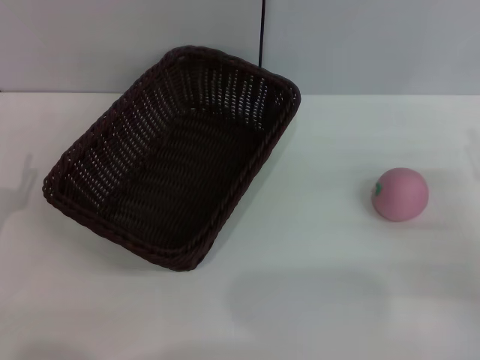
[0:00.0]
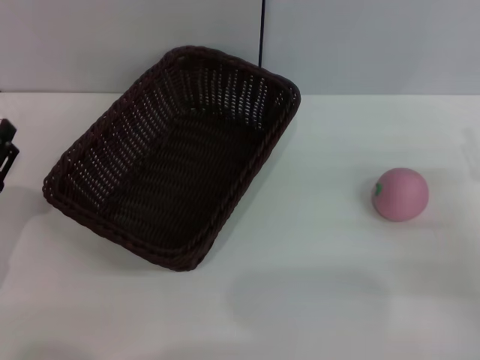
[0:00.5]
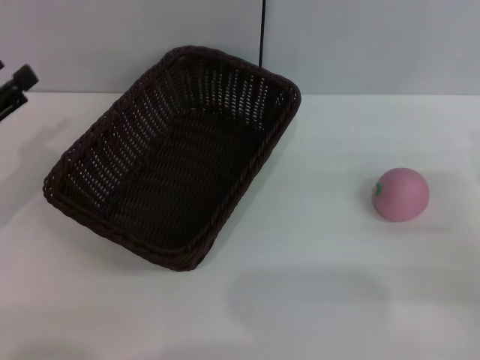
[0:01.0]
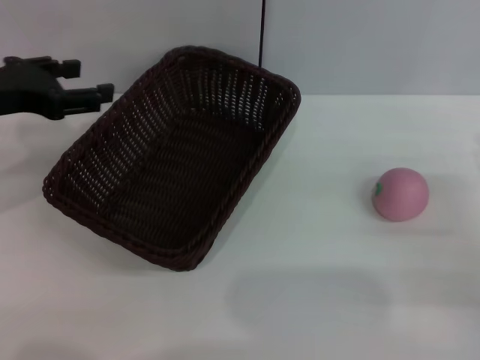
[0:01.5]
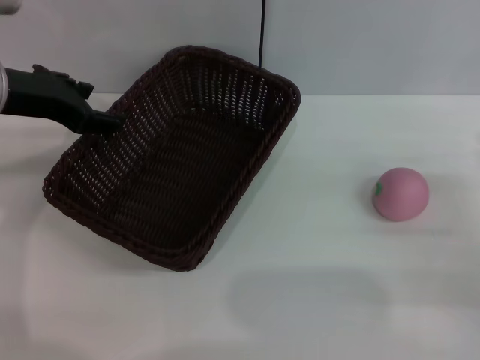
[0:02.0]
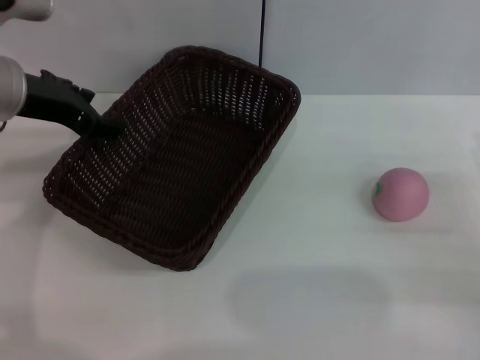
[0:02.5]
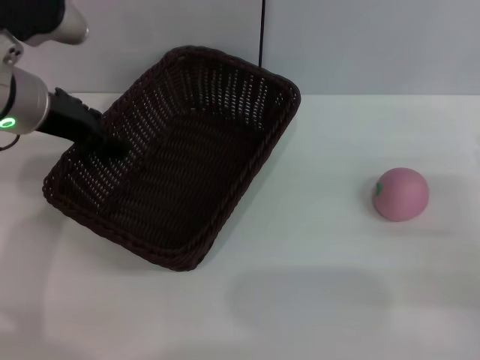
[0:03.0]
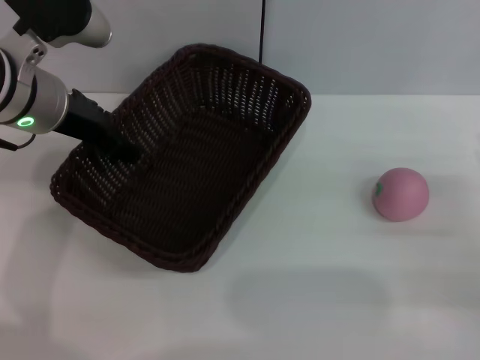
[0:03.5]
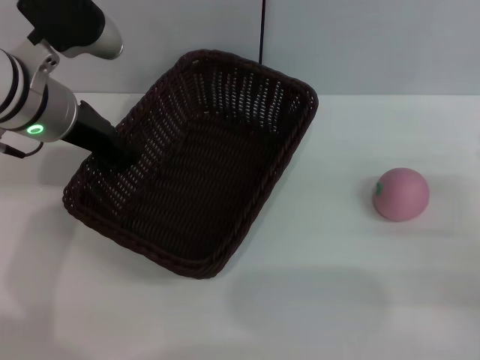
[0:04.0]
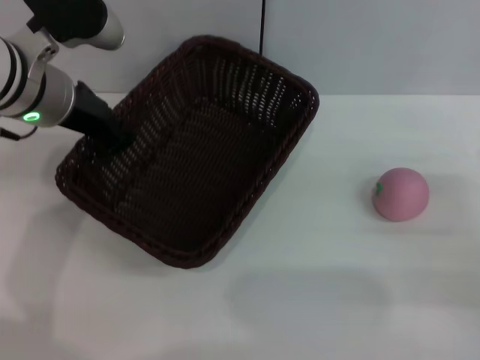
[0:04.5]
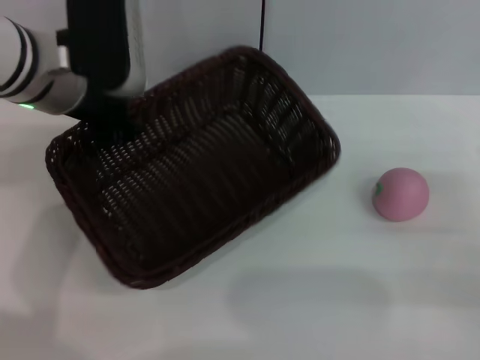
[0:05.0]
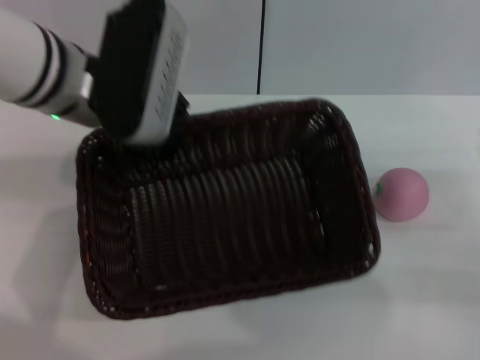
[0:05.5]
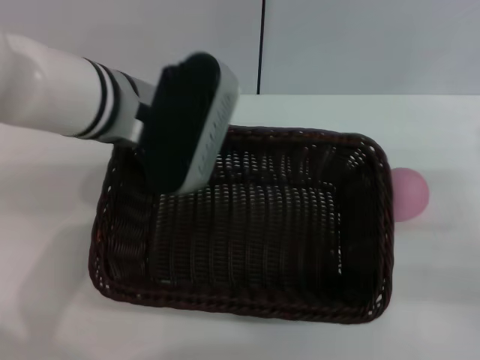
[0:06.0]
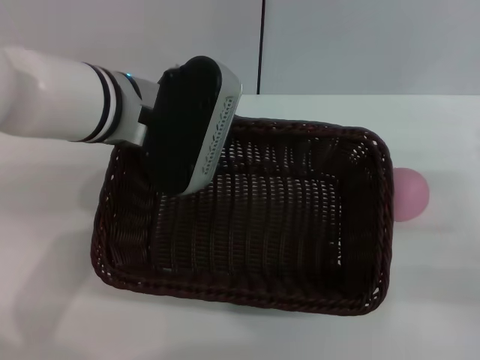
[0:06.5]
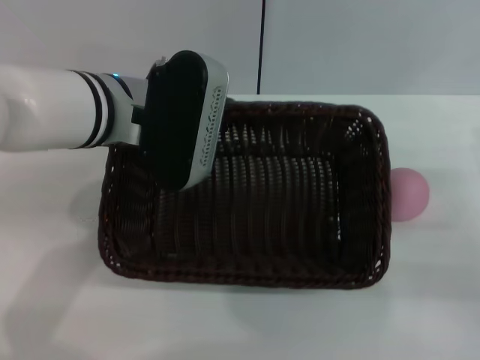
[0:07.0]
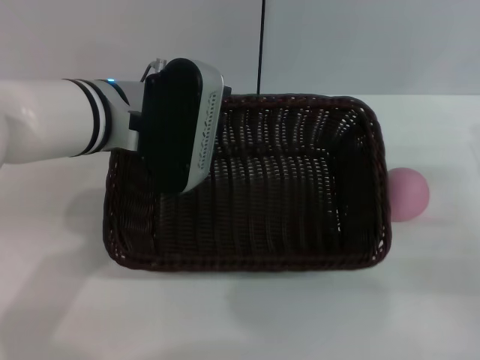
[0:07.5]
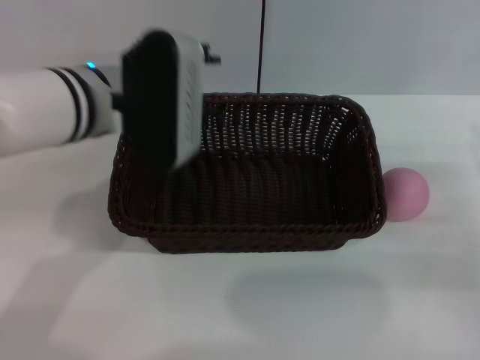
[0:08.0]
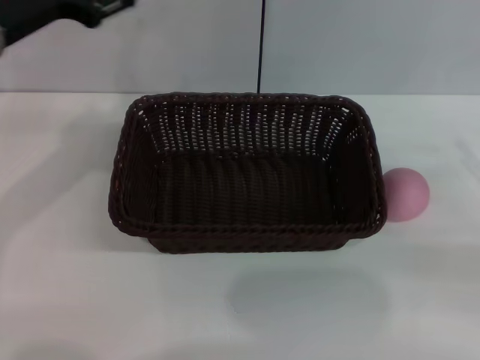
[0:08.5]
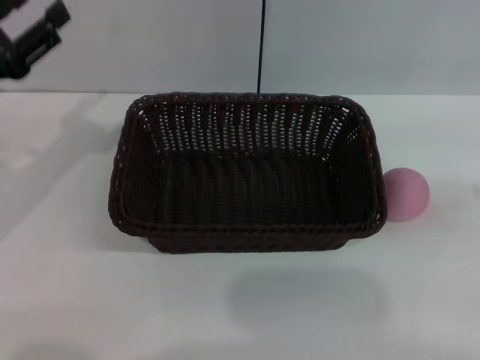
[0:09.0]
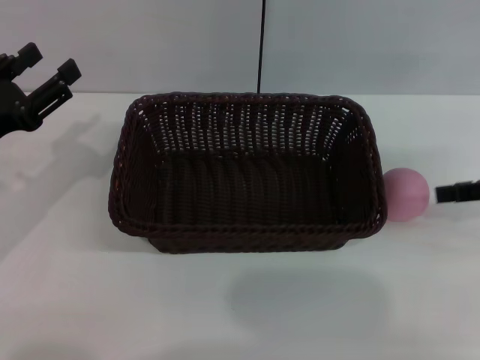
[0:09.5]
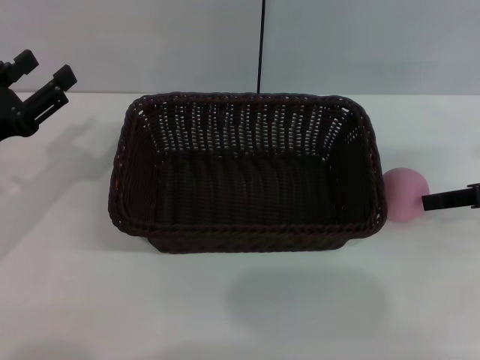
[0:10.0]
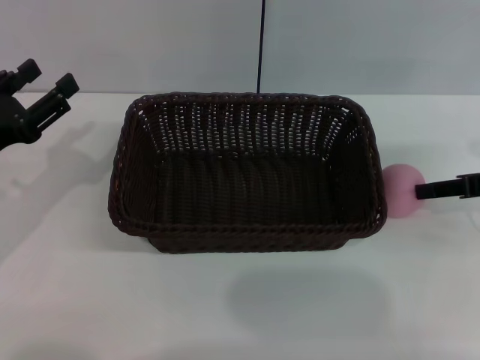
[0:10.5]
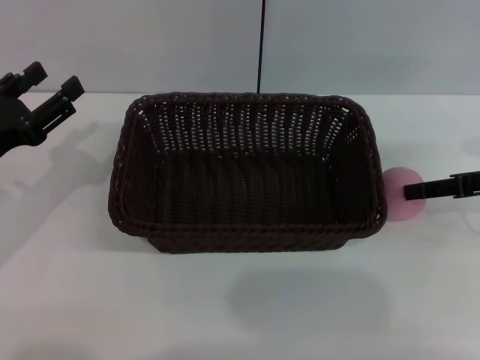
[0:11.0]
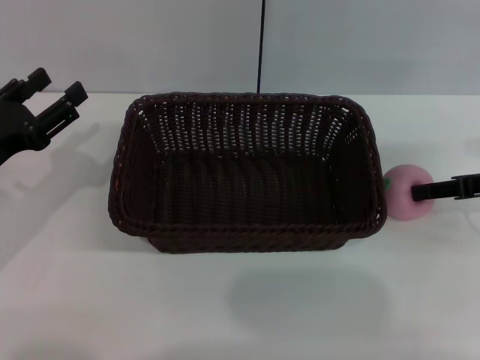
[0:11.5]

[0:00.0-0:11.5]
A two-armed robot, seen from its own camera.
Step, 0:00.0 to 0:05.0: Pick up the dark basket with the left gripper.
Step, 0:05.5 to 0:08.0: Place the dark basket in the center of view with the right gripper.
0:00.0 to 0:02.0: The left gripper is displaced upward, forward and to the right by about 25 cm.
0:02.0 to 0:04.0: The left gripper shifts roughly 5 cm to the right, and closes its fingers.
0:04.0 to 0:06.0: The left gripper goes some 10 cm to the right.
0:07.5 to 0:09.5: The right gripper moves upward and forward, about 10 cm; the left gripper moves to the left, roughly 20 cm, and opens up.
0:09.5 to 0:11.5: There are only small adjustments of the grippers.

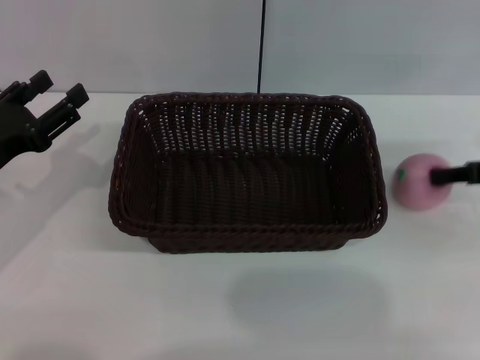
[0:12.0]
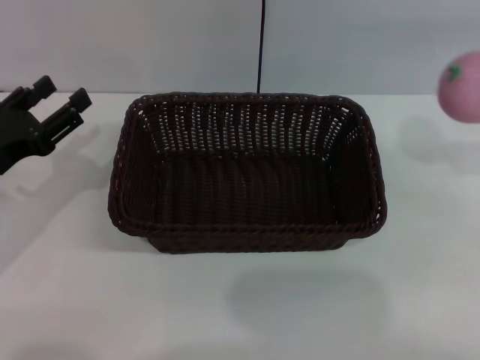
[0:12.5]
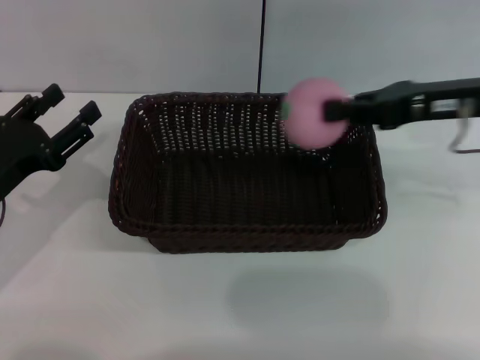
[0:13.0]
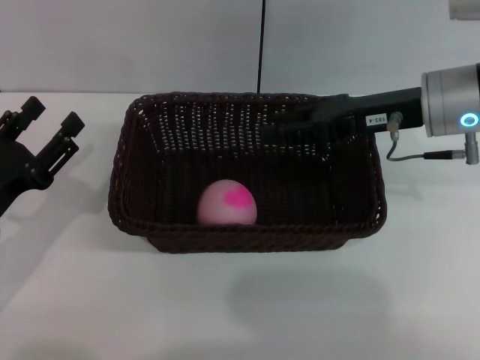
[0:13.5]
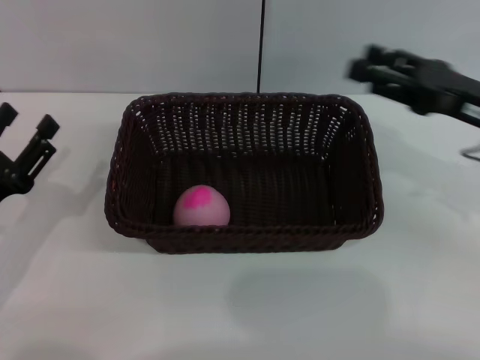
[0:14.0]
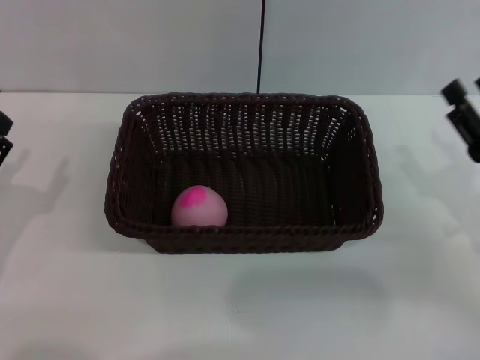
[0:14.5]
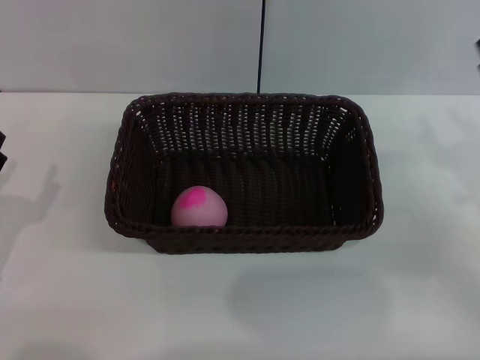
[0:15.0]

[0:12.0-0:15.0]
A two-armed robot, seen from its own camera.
Step, 0:13.0 to 0:13.5: Place the peach into the basket with the left gripper.
0:12.0 to 0:13.5: The right gripper heads to the left, covering some 15 cm. Meanwhile the left gripper moves roughly 5 cm.
0:13.5 to 0:15.0: The right gripper goes approximately 15 cm to the right, backward and downward, and opens its fingers.
